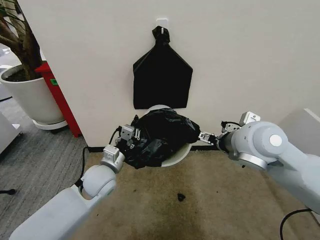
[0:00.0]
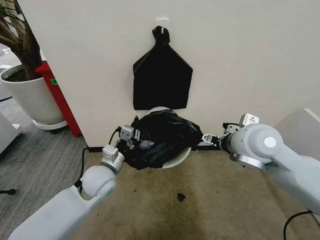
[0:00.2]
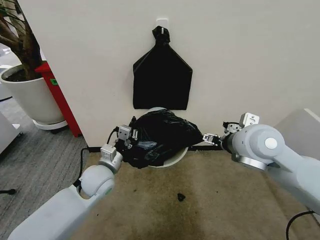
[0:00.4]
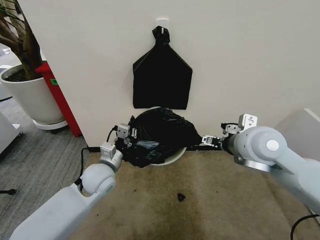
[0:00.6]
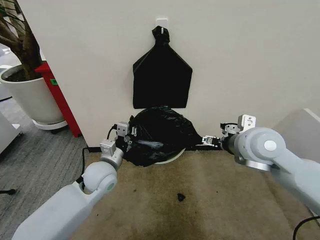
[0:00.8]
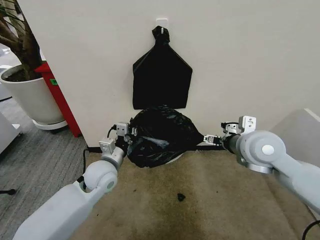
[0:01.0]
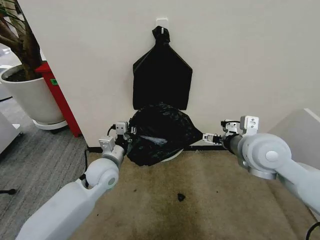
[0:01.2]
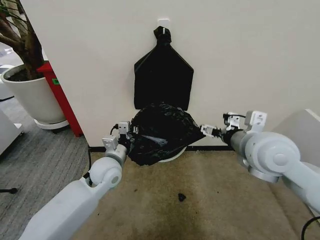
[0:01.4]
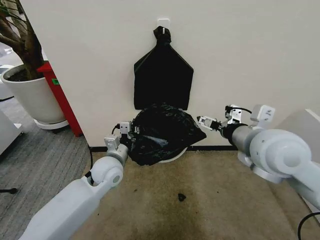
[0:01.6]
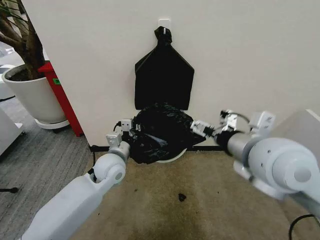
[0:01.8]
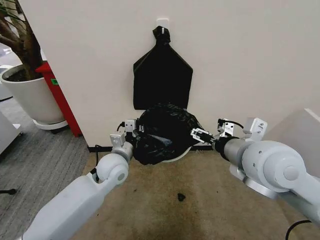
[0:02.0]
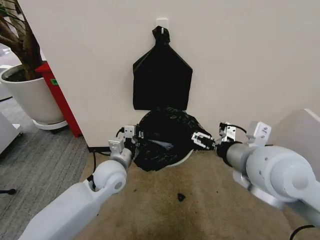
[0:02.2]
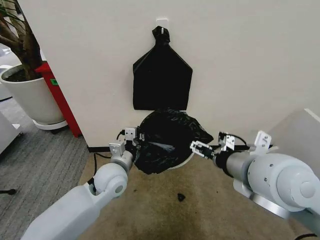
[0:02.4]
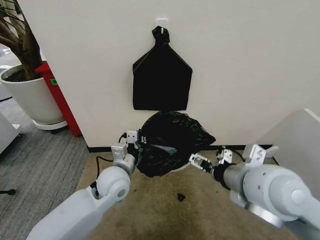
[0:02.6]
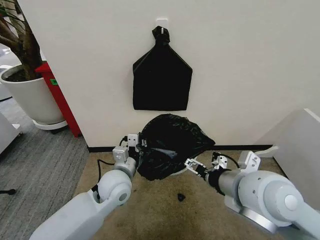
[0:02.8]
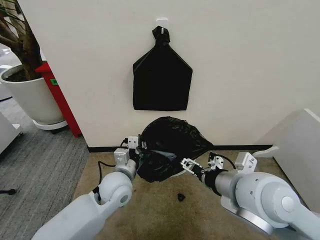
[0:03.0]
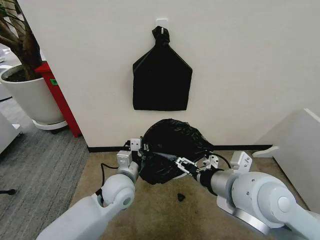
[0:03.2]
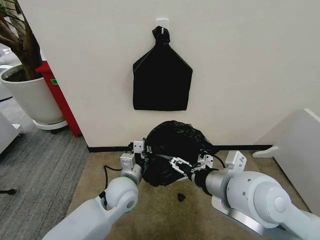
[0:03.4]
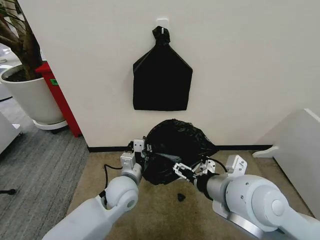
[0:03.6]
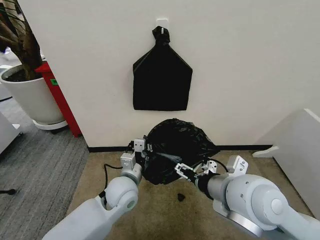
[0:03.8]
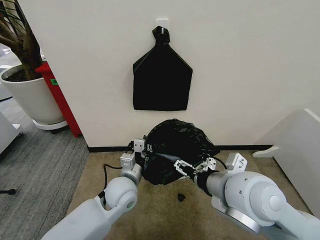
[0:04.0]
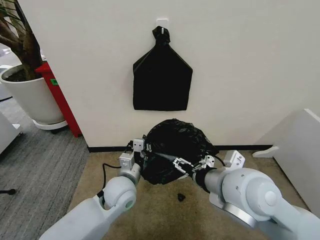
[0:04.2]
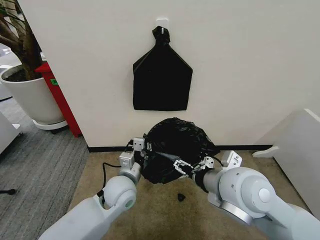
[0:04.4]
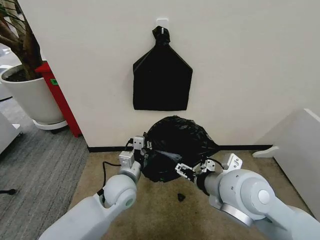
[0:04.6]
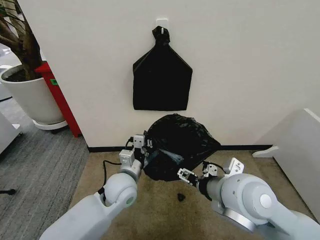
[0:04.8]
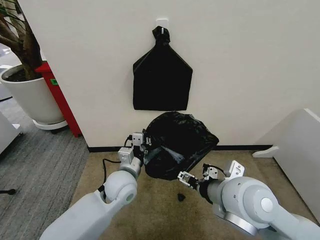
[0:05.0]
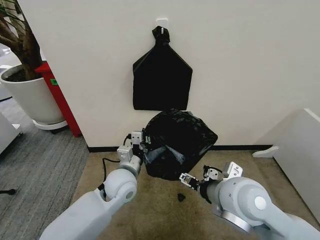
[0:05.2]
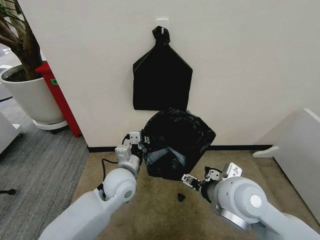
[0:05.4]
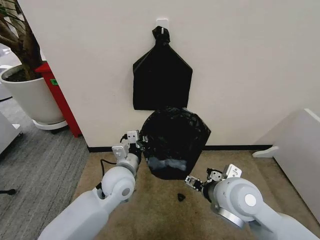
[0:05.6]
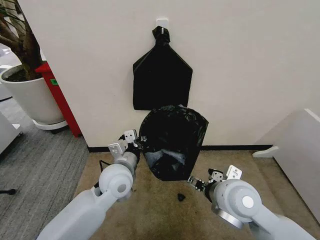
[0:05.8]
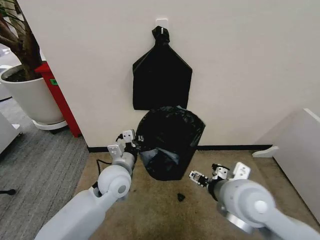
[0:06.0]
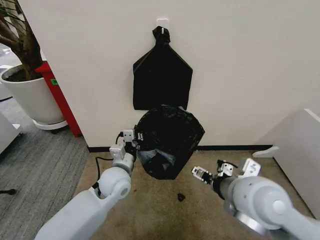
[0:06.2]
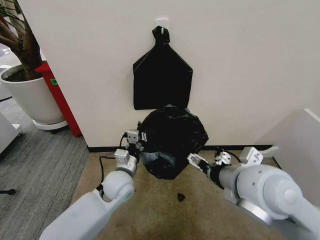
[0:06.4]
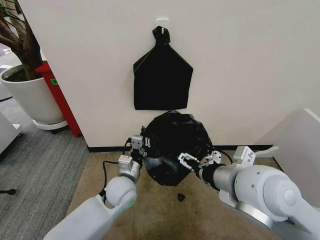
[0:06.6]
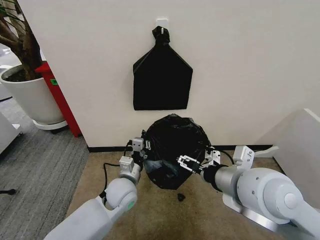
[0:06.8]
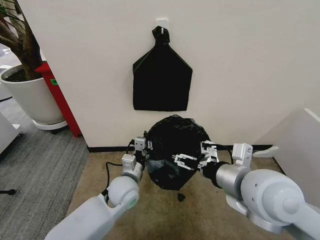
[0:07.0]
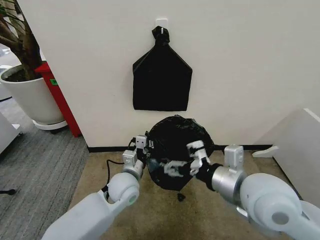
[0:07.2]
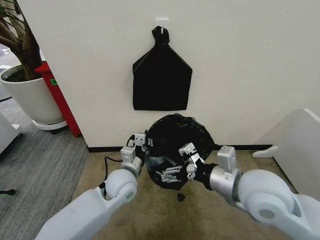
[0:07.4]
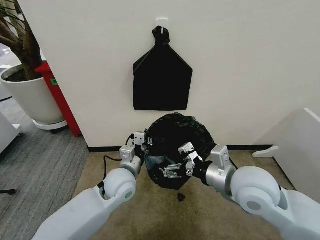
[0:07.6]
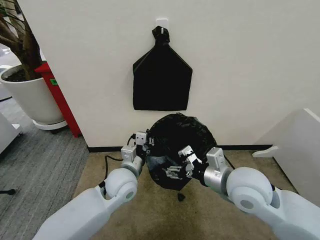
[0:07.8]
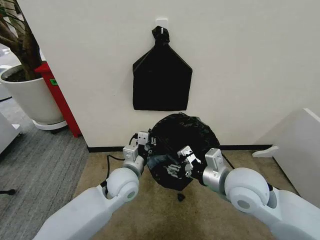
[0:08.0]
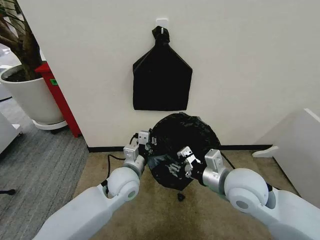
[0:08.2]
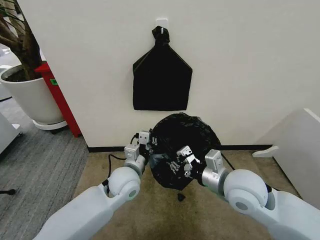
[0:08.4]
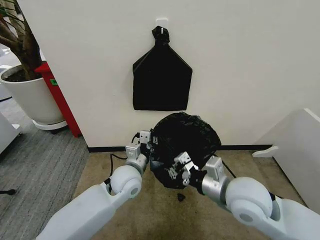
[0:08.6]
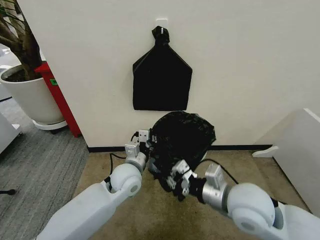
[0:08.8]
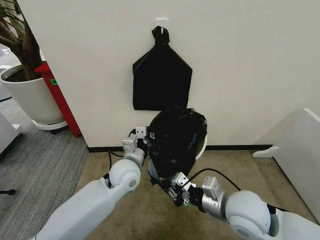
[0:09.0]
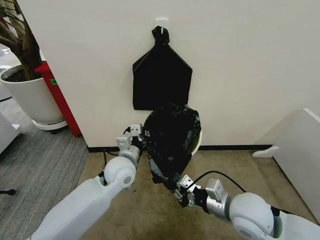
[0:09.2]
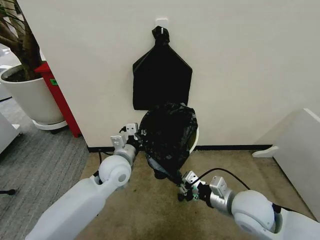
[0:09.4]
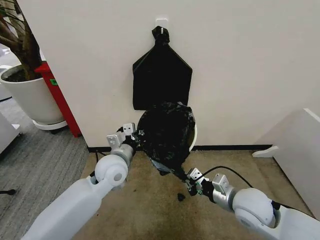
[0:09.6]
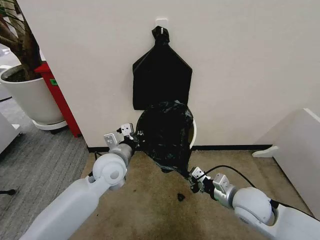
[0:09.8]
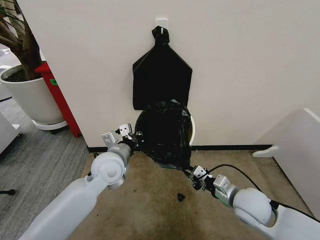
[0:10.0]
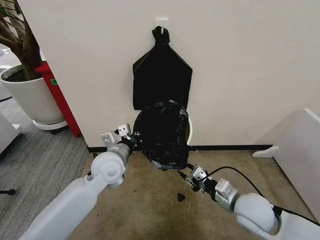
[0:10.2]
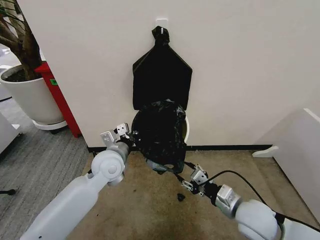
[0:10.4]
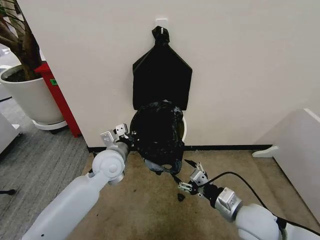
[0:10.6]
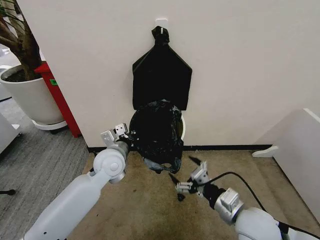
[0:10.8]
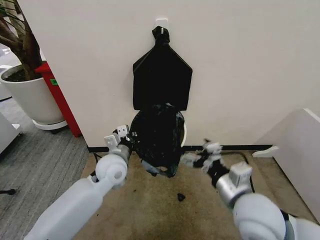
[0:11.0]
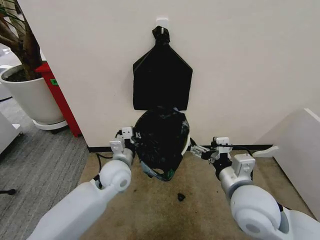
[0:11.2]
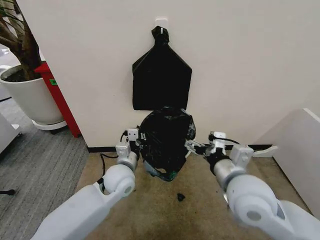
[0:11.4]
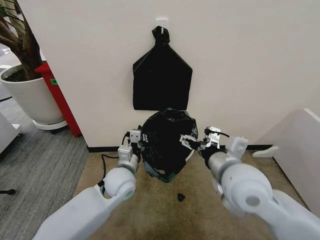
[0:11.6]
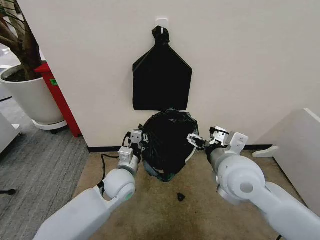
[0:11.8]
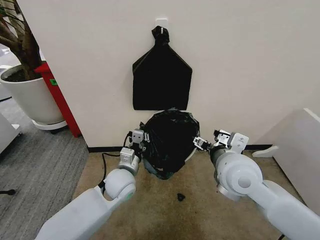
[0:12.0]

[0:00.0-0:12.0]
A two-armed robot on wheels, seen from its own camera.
Task of the whole recording: Place the garbage bag over the trash bin.
0:01.6 to 0:03.0: The left gripper heads backward, covering some 5 cm; the right gripper travels backward and downward by roughly 10 cm.
0:03.0 to 0:04.4: The grippers make only small movements.
0:04.4 to 0:06.0: The right gripper ends up about 5 cm from where it was.
0:07.6 to 0:09.0: The right gripper goes roughly 5 cm downward, and closes.
0:09.0 to 0:10.4: The left gripper heads to the left, covering approximately 5 cm. Meanwhile the right gripper goes about 5 cm downward, and opens up.
0:10.4 to 0:12.0: The right gripper goes some 15 cm upward, to the left and forward, and opens its fingers, while the left gripper shifts roughly 5 cm downward.

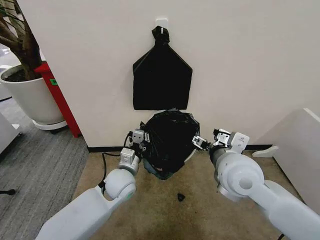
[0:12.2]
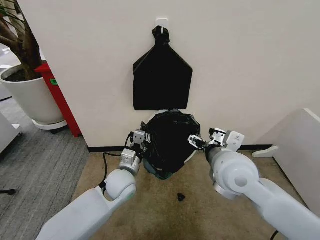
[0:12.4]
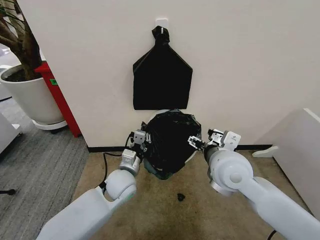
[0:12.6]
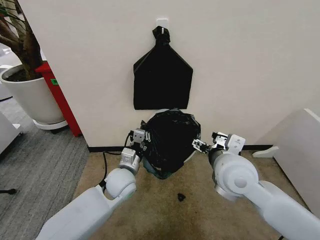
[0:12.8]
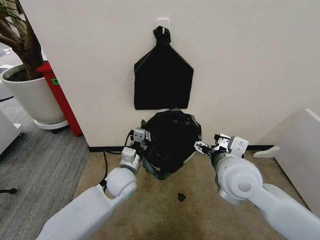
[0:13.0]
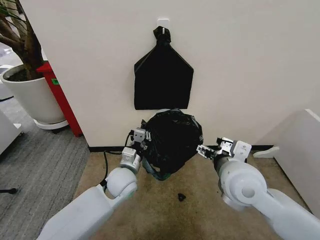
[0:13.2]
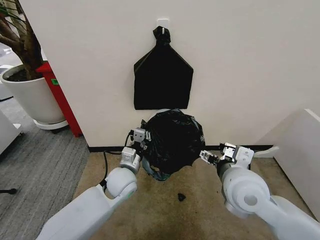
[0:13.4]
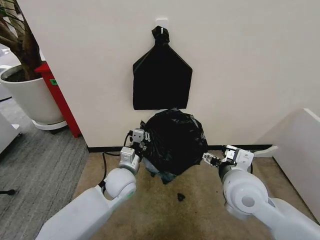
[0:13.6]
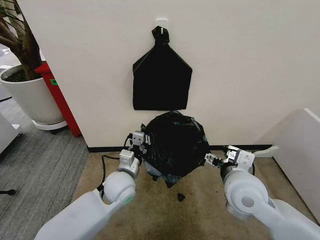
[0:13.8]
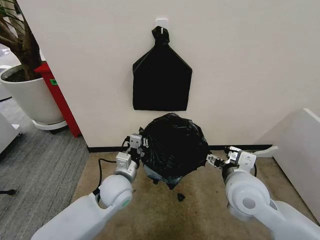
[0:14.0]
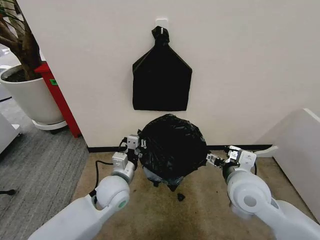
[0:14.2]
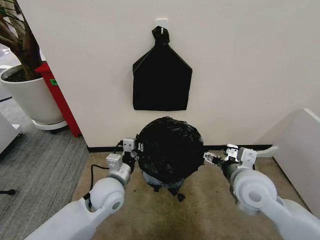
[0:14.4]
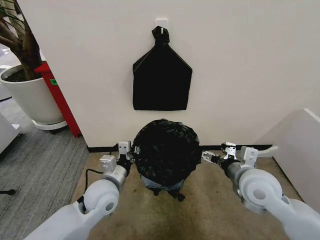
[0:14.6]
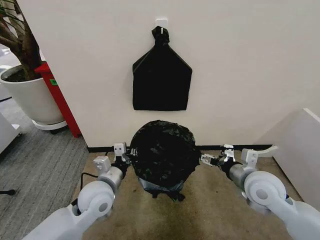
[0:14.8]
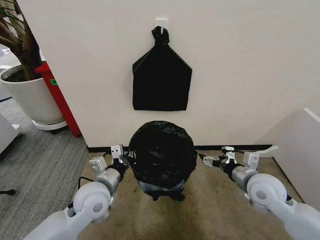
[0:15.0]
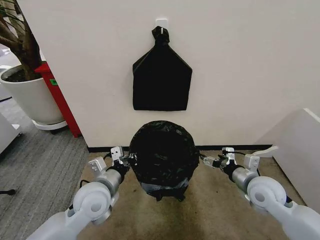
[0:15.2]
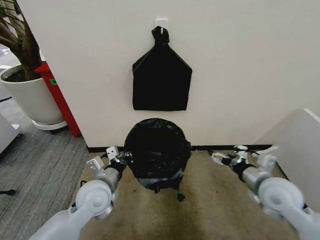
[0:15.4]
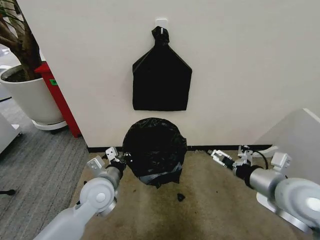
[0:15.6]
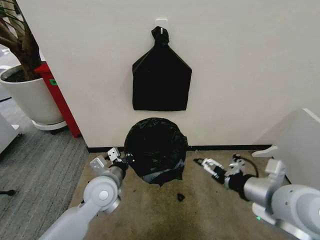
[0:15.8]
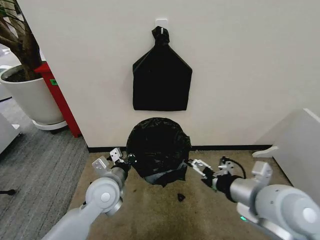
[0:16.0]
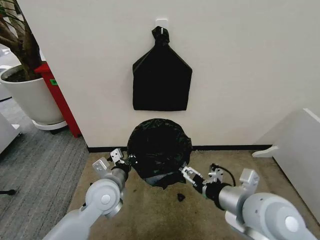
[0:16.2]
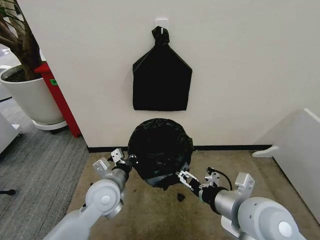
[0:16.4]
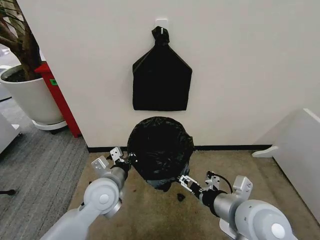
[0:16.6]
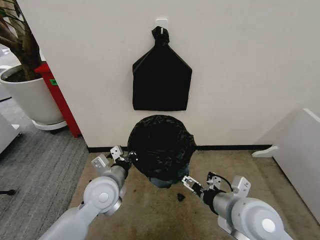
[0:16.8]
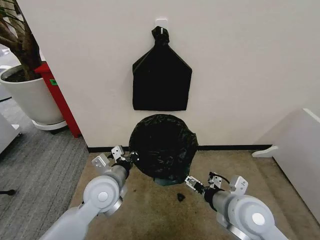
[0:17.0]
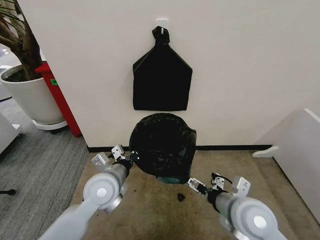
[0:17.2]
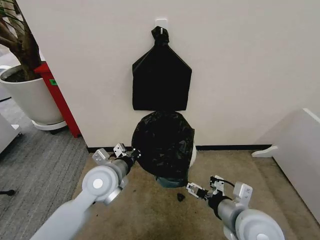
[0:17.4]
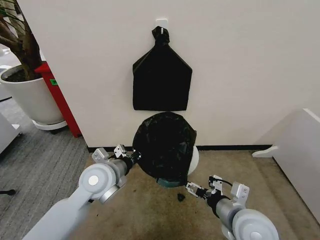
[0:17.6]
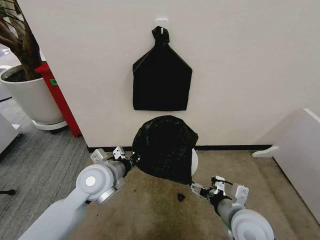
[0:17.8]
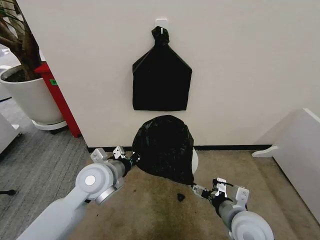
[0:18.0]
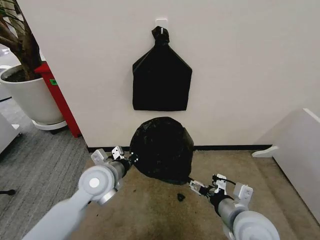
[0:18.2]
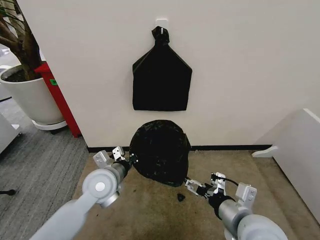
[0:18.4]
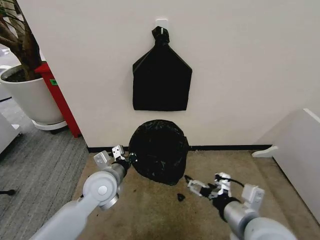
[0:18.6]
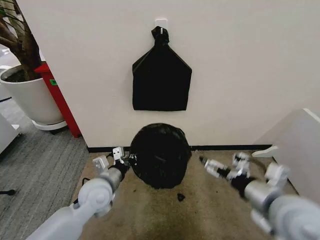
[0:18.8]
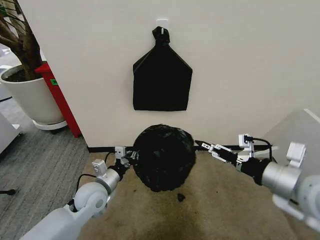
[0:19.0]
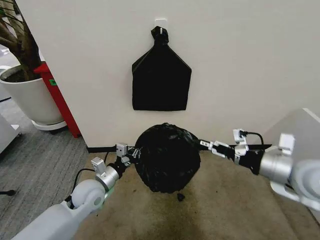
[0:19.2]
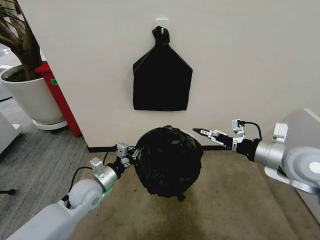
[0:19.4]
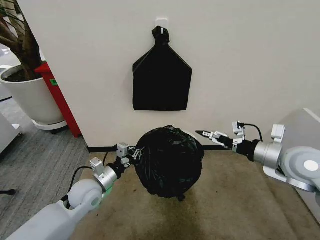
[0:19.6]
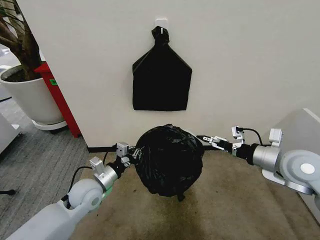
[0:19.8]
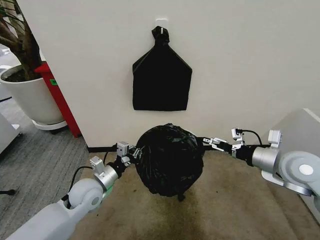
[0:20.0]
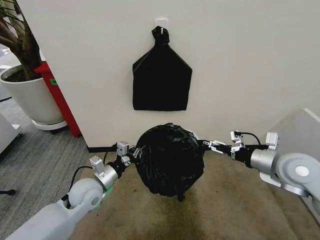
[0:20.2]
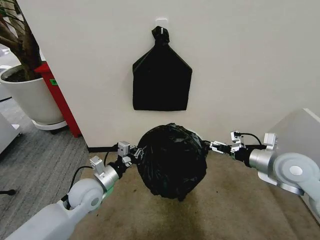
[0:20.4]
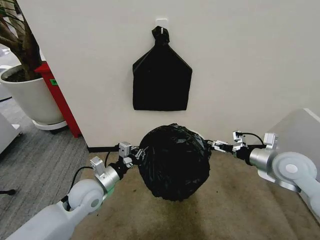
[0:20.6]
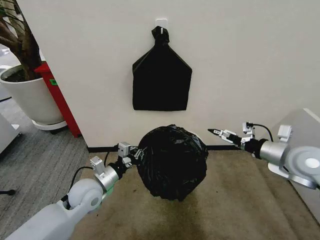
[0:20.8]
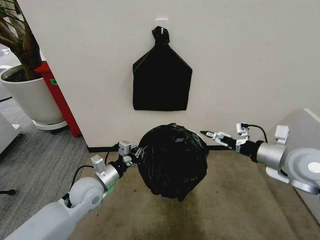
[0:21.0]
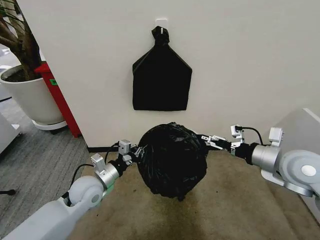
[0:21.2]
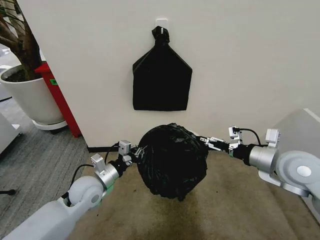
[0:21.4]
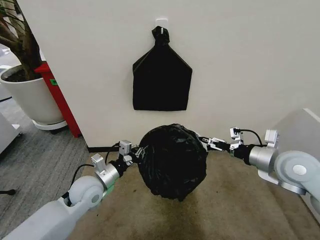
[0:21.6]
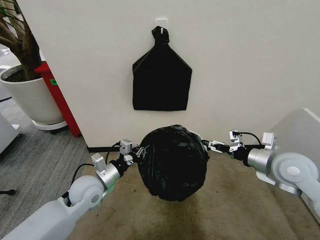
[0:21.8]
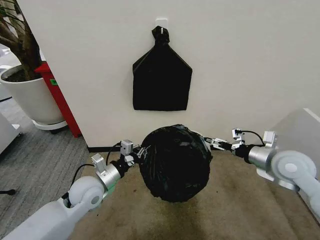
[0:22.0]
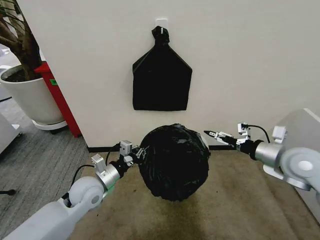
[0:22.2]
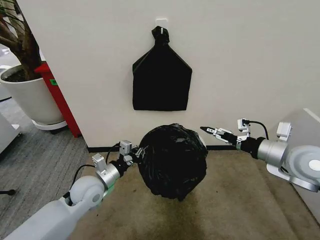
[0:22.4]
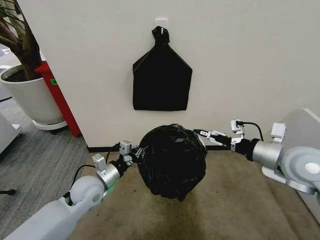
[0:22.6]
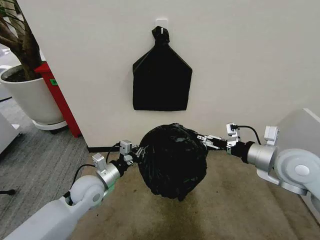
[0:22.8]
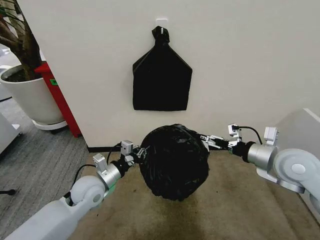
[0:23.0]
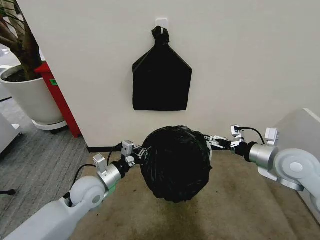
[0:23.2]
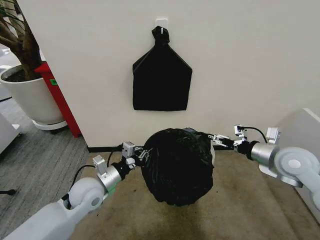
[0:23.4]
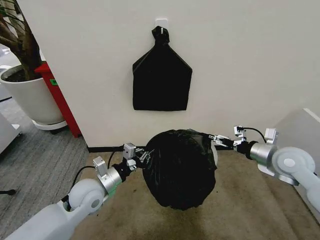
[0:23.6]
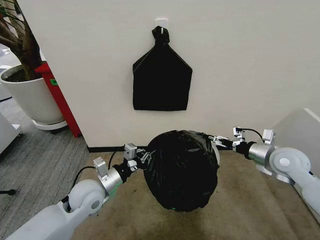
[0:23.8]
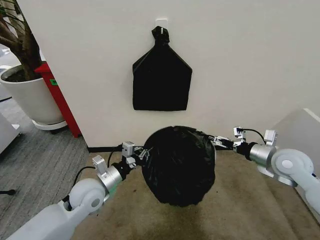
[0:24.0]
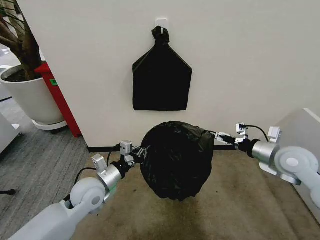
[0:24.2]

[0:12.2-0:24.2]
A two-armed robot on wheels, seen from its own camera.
Task of the whole recording: Place the garbage bag over the trash bin.
0:12.2 to 0:13.8: The right gripper goes roughly 5 cm downward.
0:13.8 to 0:15.2: The left gripper heads to the left, covering approximately 5 cm; the right gripper shifts some 15 cm to the right and downward.
0:15.2 to 0:16.6: The right gripper goes some 20 cm to the left, backward and upward.
0:16.6 to 0:18.2: The right gripper goes roughly 5 cm downward.
0:18.2 to 0:19.8: The left gripper heads downward and to the left, covering roughly 10 cm. Meanwhile the right gripper goes approximately 20 cm to the right, forward and upward.
0:19.8 to 0:22.6: The grippers stay close to where they were, moving slightly.
0:22.6 to 0:24.2: The right gripper moves downward, some 5 cm.
